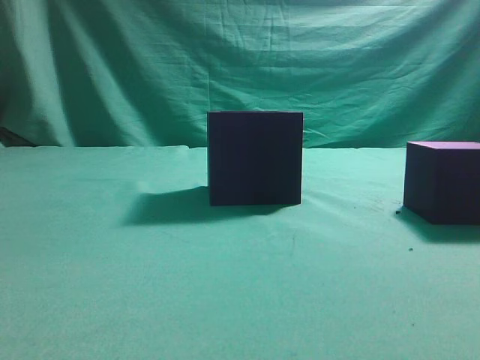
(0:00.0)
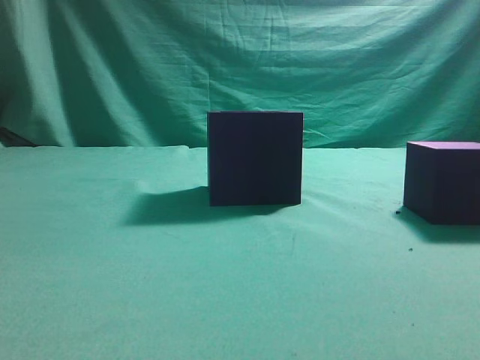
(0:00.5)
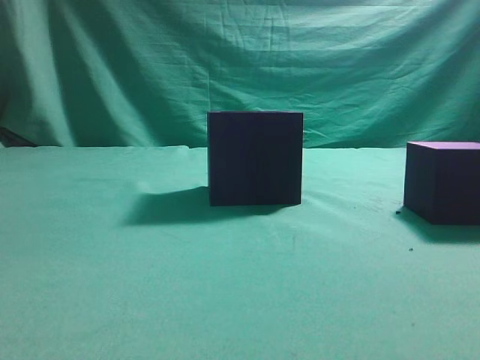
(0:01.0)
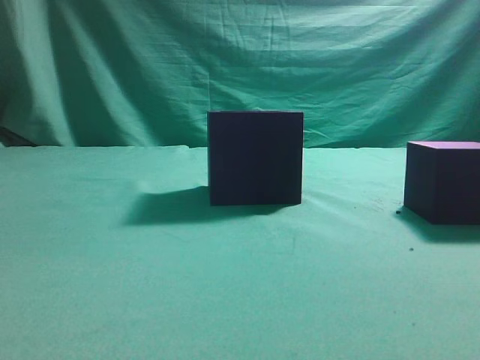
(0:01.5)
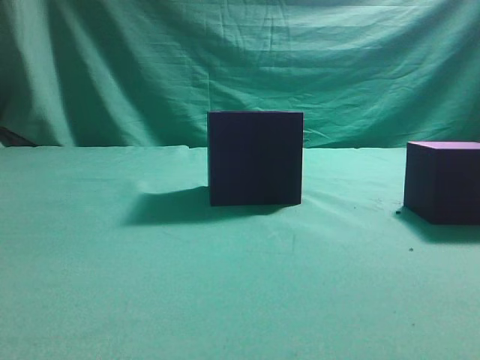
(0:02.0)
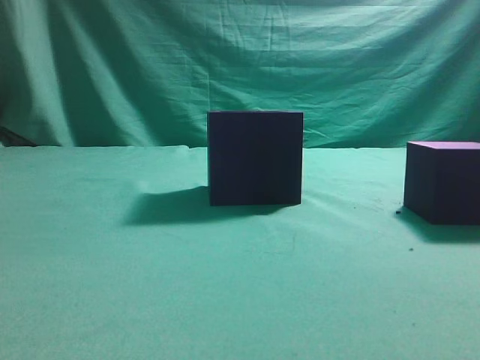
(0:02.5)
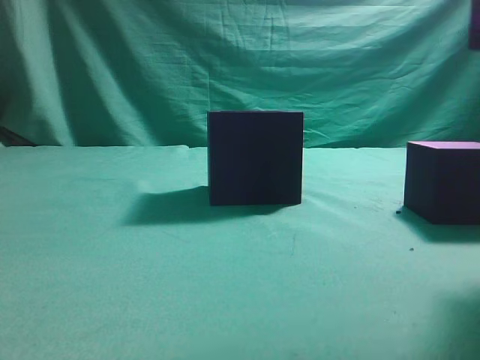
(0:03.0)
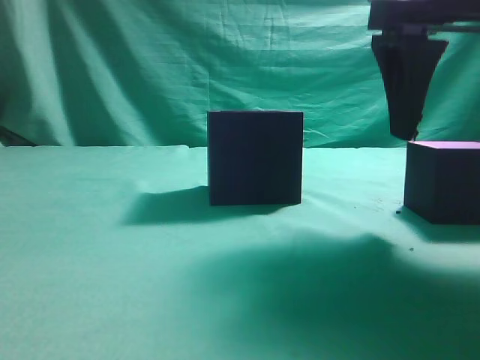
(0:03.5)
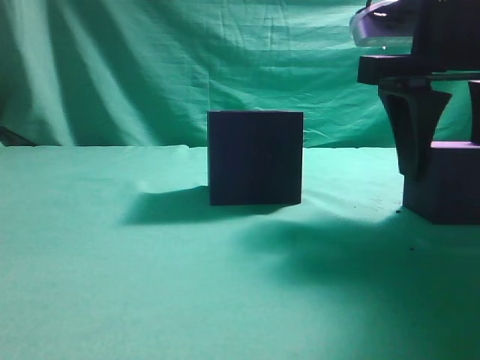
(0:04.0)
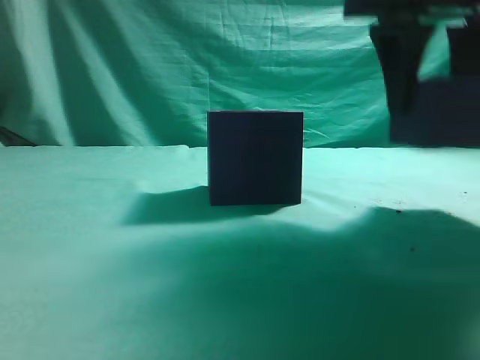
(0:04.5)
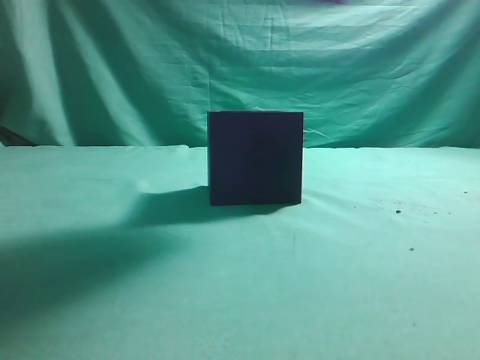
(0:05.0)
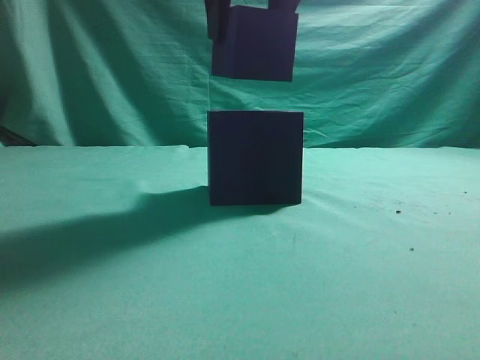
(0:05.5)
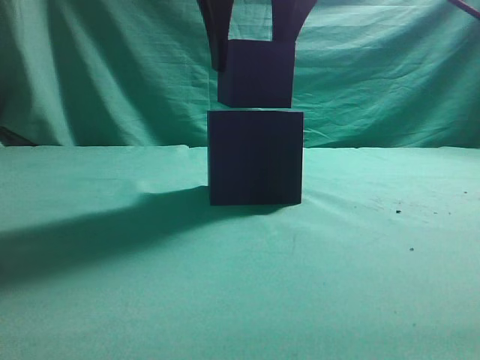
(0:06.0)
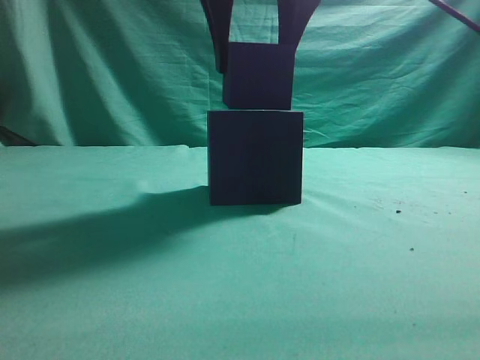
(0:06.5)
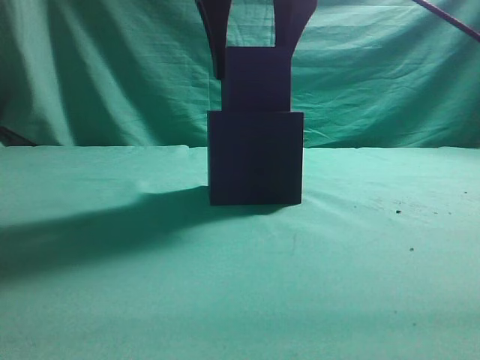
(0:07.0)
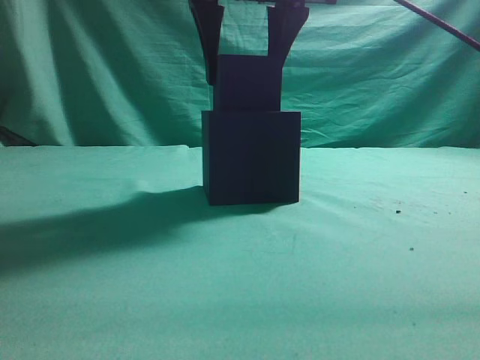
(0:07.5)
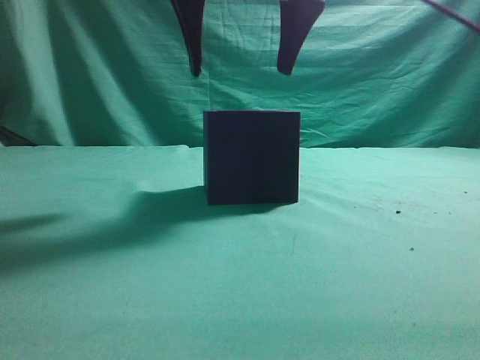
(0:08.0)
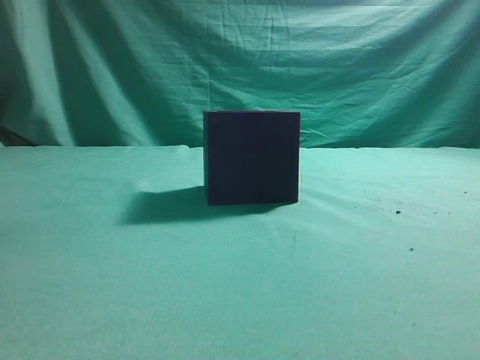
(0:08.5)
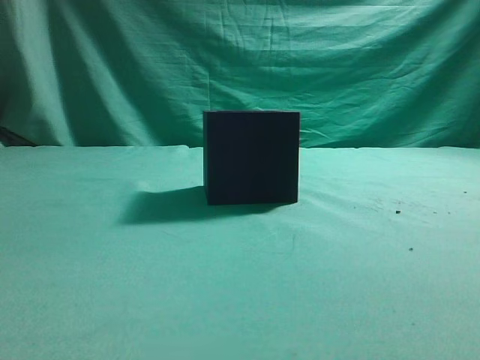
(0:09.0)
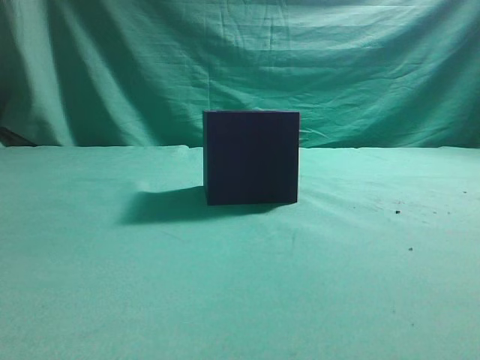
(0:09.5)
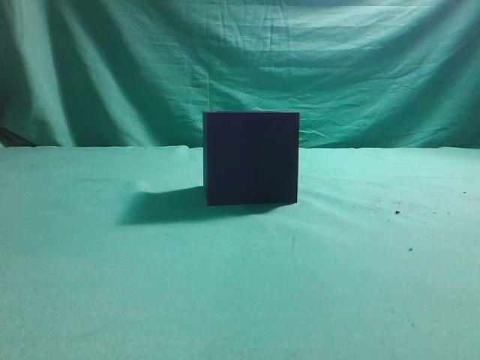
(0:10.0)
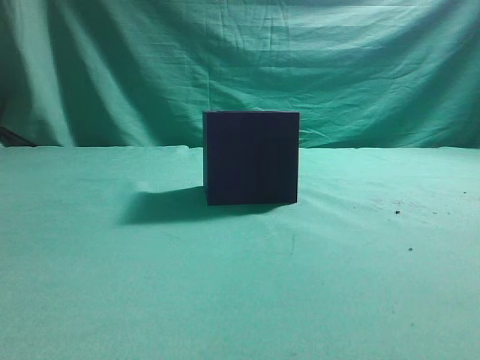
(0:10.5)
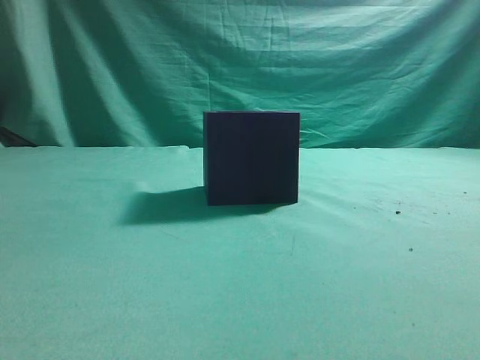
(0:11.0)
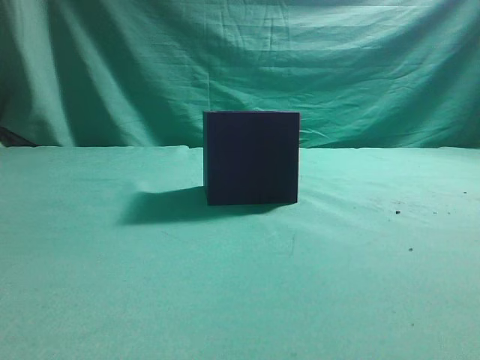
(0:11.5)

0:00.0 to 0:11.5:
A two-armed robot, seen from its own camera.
Task of the whole recording: pick up the cube block and place it into the cube groove.
Step, 0:00.0 to 0:04.5: Grasp the cube.
Step, 0:05.0 to 0:08.0: Place cube into the cube-shaped recess.
0:02.0 to 0:04.0: The right gripper shifts about 25 cm forward and to the left, and opens its fingers.
0:04.0 to 0:06.0: The right gripper travels to the left and upward by approximately 15 cm.
0:06.0 to 0:07.5: The grippers make only small movements.
0:07.5 to 0:09.5: The right gripper goes about 25 cm backward and to the right, and closes.
